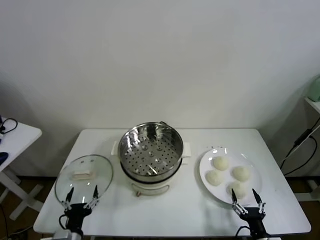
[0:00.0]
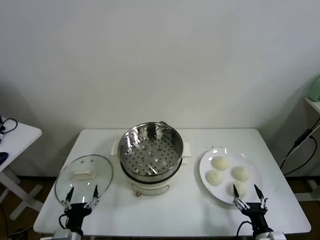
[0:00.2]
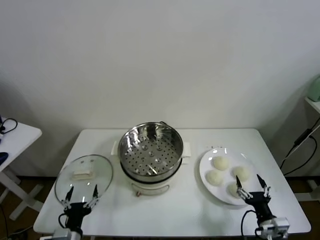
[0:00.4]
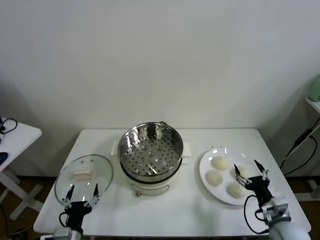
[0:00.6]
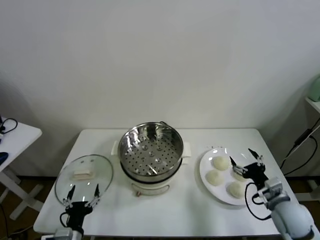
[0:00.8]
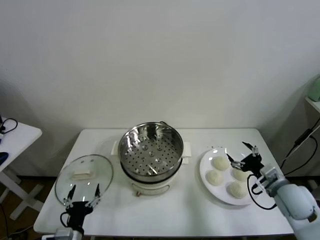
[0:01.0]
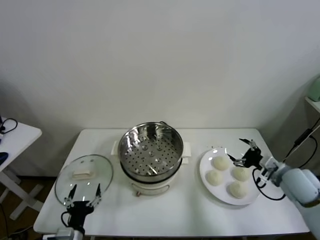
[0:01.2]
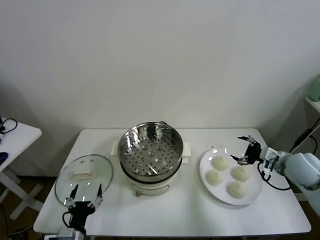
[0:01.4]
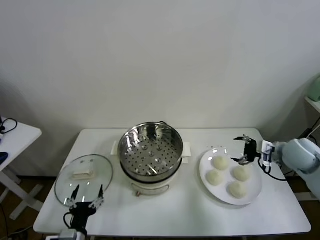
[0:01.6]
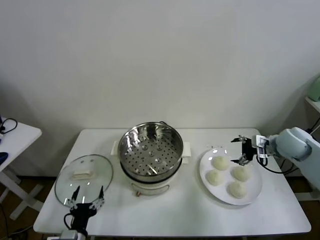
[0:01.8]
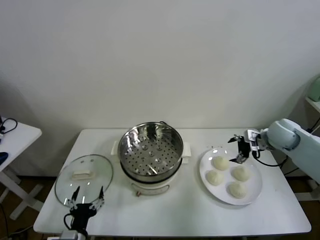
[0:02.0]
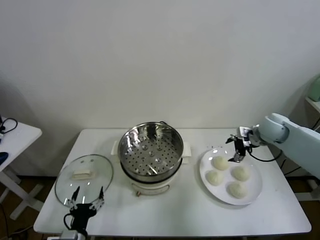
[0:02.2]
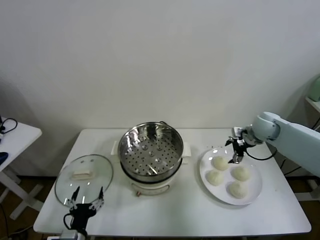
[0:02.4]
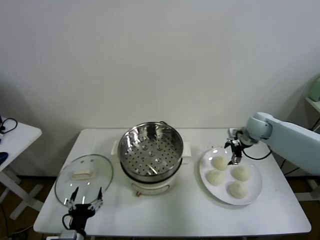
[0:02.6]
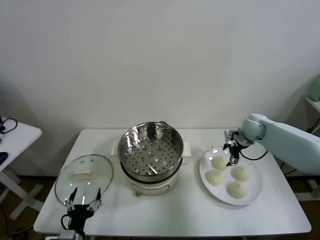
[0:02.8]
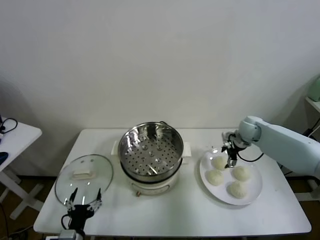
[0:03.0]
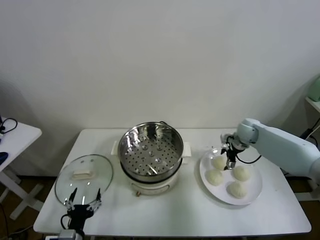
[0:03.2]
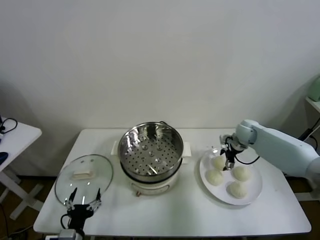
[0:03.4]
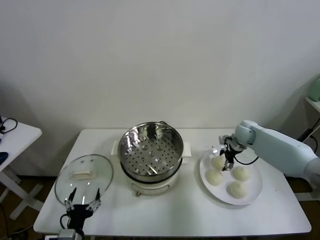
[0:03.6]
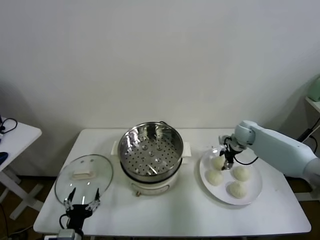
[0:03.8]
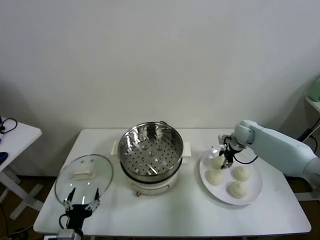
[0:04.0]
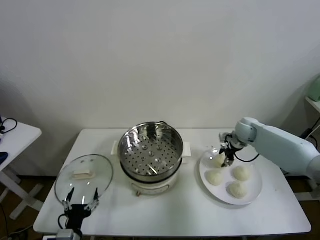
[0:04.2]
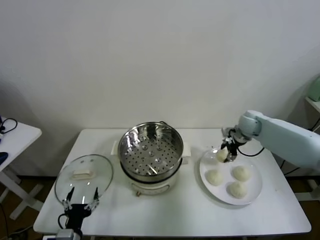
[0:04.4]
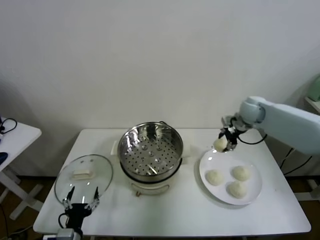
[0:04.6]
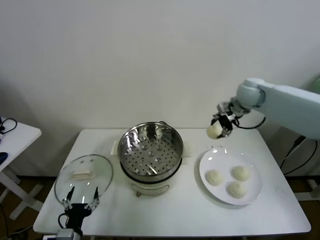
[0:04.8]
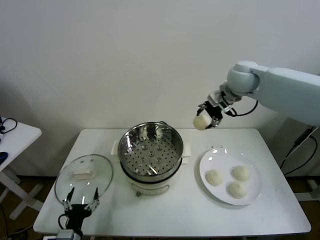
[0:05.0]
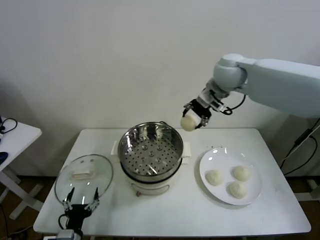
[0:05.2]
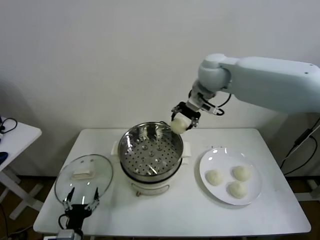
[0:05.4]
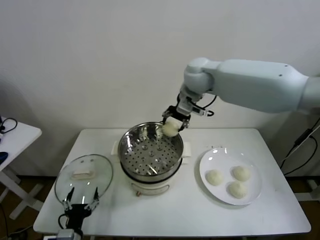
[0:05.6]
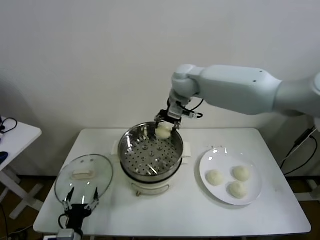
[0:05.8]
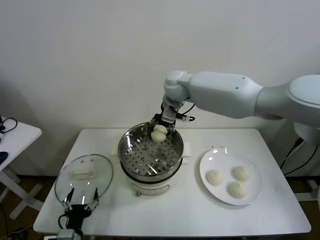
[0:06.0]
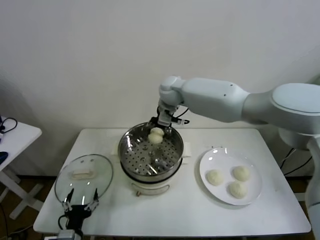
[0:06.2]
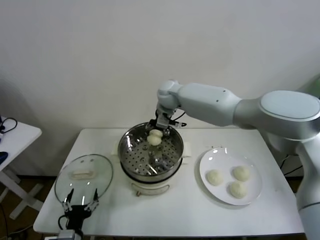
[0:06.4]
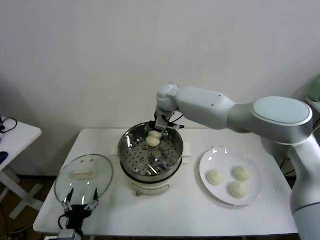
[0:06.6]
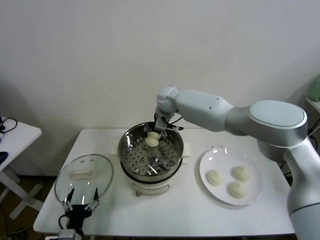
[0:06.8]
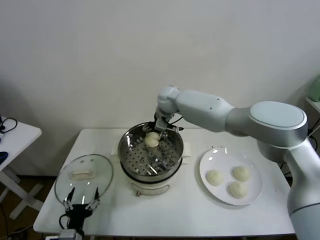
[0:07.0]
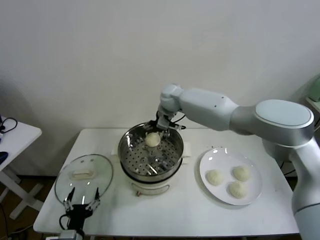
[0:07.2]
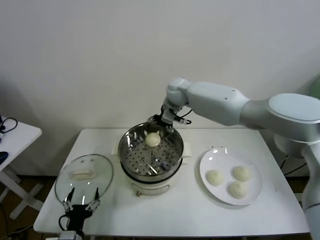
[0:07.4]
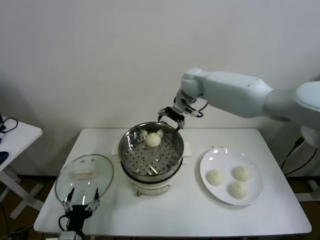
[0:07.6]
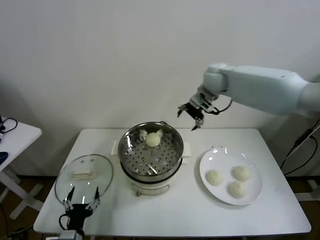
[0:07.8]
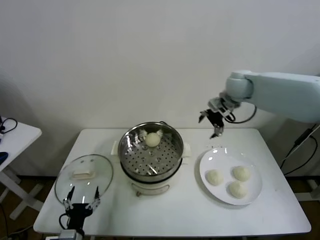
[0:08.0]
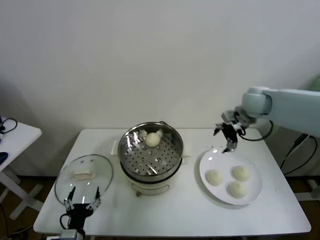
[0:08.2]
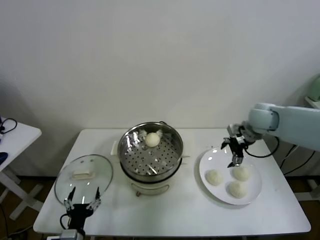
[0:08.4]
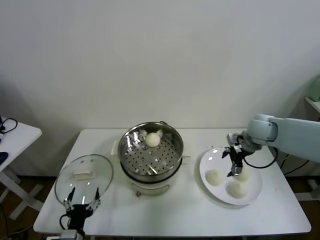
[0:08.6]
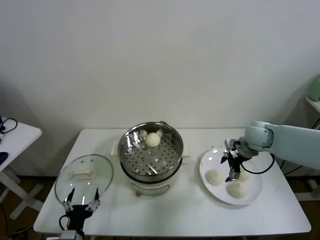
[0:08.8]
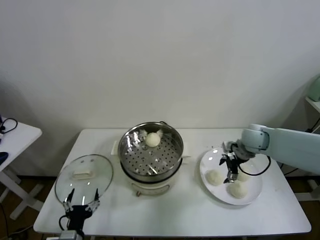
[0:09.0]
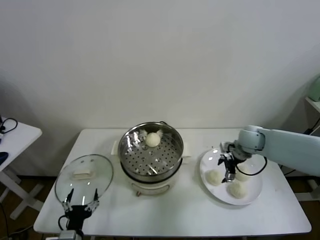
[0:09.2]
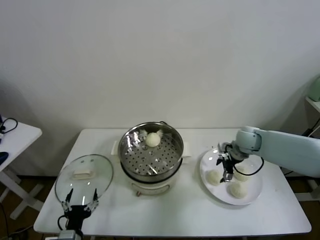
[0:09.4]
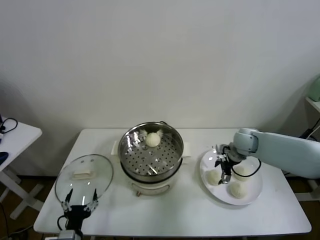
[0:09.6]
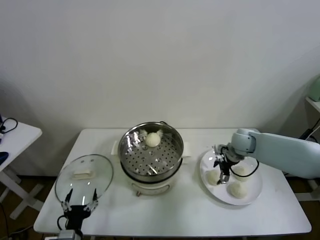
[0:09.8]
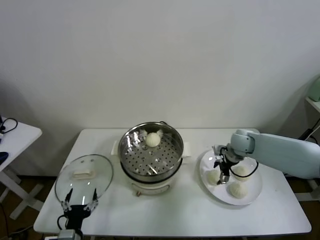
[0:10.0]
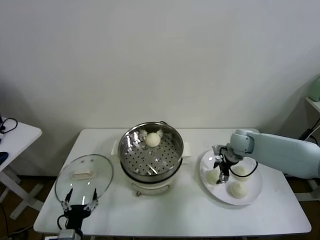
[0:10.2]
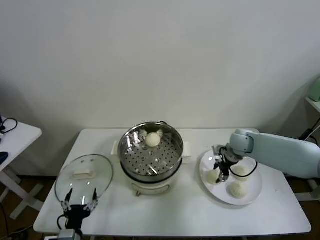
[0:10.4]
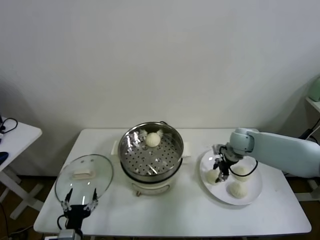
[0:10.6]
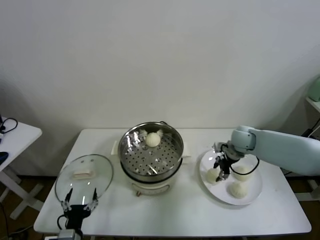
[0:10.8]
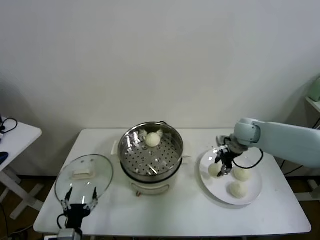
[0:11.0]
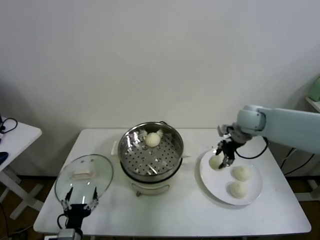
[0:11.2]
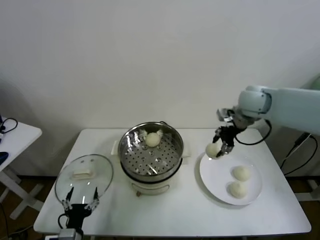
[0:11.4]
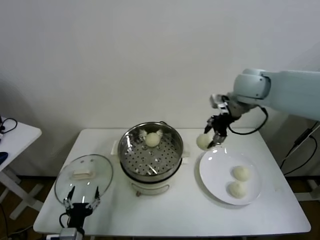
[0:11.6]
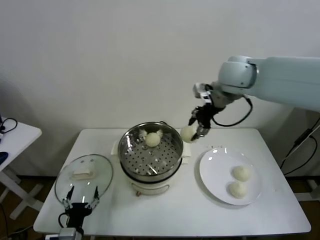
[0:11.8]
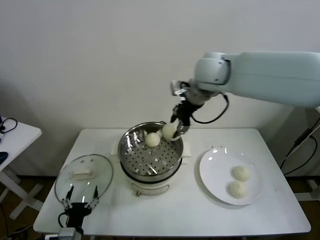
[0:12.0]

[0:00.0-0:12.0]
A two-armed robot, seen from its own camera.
Task of the whole recording: take steamed baozi put them in steamer.
Step, 0:00.0 to 0:03.8: Grasp the baozi in the plate with right gripper.
Step, 0:04.0 to 0:07.0: Place the baozi on the steamer with right gripper.
Step, 0:07.2 to 0:10.2: Grasp the baozi in the plate with right gripper.
0:01.6 to 0:03.0: The right gripper travels forward, to the left and downward by approximately 15 cm.
0:03.0 to 0:04.4: The right gripper shifts approximately 5 cm upward, and closes up.
0:04.4 to 0:06.0: The right gripper heads to the left, covering roughly 30 cm.
0:06.0 to 0:07.6: The right gripper heads to the right, covering about 10 cm, and opens up.
0:07.6 to 0:09.0: The right gripper heads downward, to the right and backward, covering some 25 cm.
0:09.0 to 0:10.4: The right gripper closes.
0:10.4 to 0:12.0: The right gripper heads upward and to the left, covering approximately 35 cm.

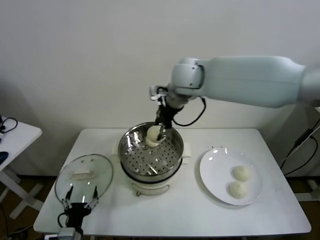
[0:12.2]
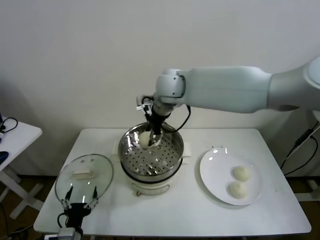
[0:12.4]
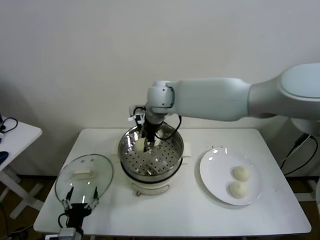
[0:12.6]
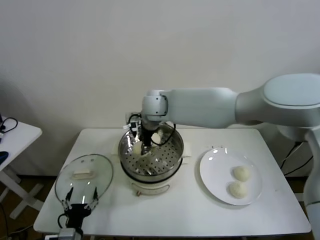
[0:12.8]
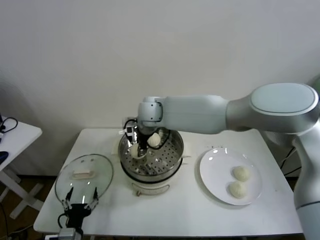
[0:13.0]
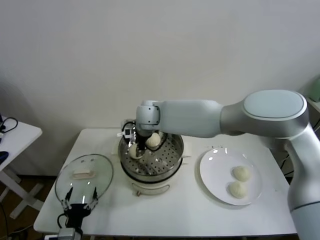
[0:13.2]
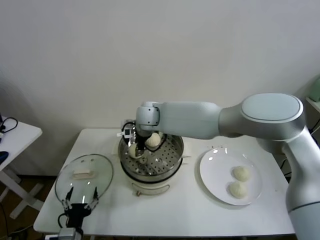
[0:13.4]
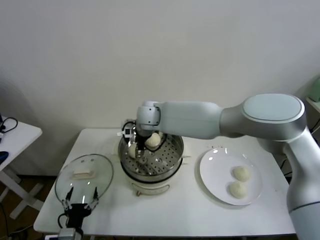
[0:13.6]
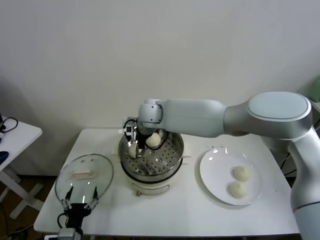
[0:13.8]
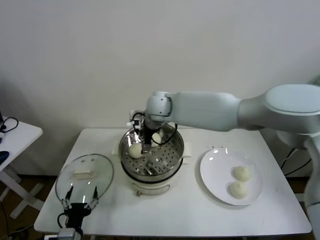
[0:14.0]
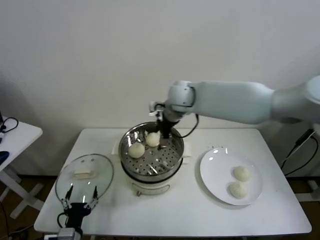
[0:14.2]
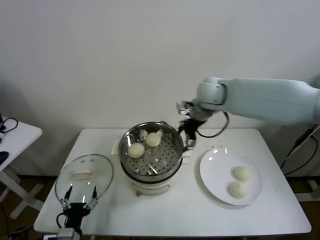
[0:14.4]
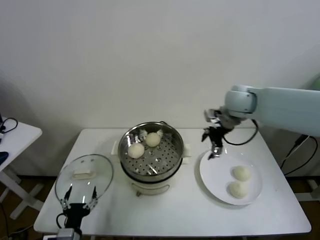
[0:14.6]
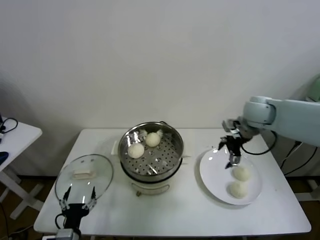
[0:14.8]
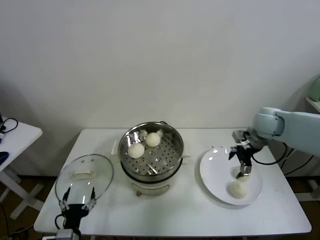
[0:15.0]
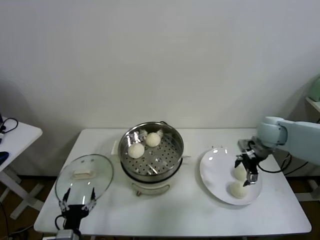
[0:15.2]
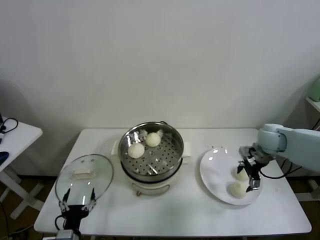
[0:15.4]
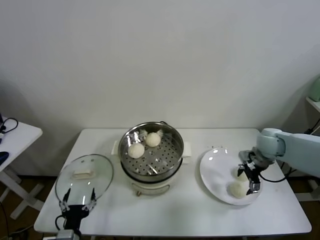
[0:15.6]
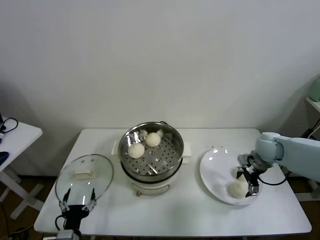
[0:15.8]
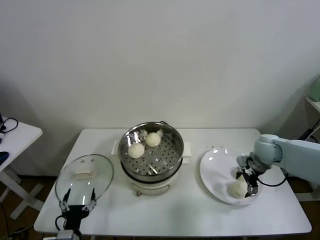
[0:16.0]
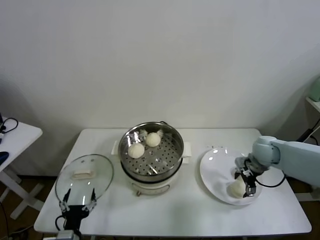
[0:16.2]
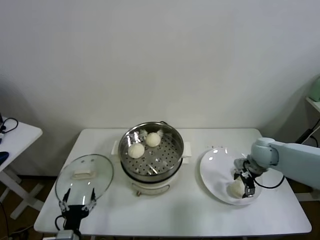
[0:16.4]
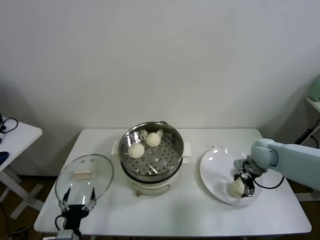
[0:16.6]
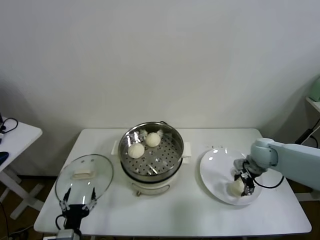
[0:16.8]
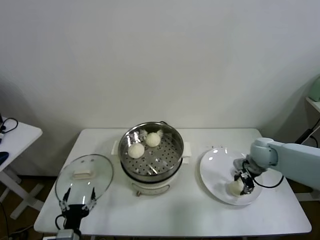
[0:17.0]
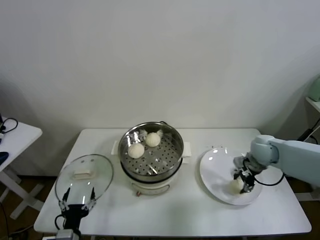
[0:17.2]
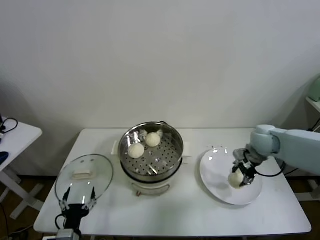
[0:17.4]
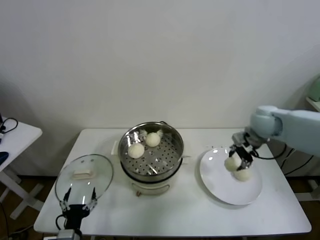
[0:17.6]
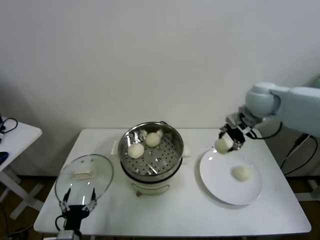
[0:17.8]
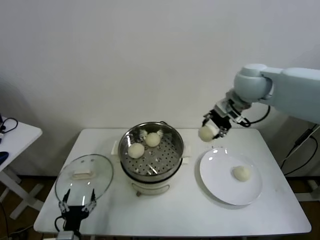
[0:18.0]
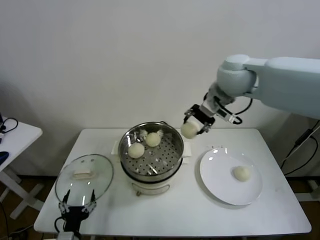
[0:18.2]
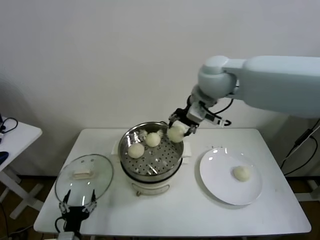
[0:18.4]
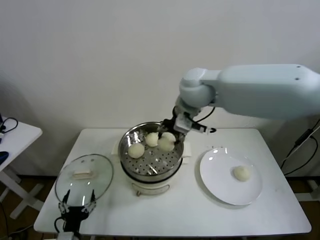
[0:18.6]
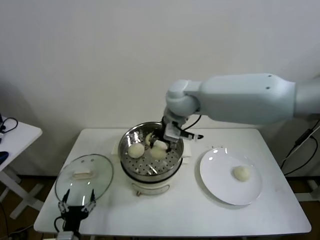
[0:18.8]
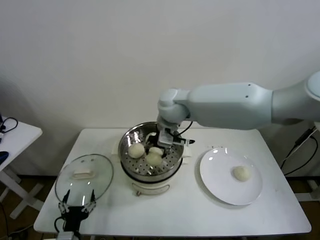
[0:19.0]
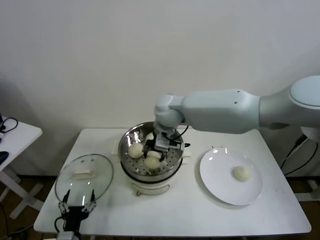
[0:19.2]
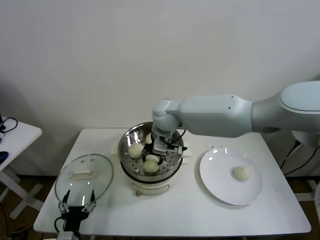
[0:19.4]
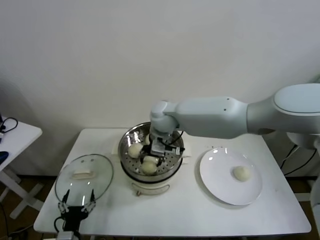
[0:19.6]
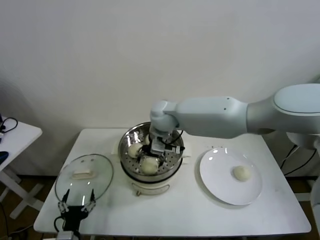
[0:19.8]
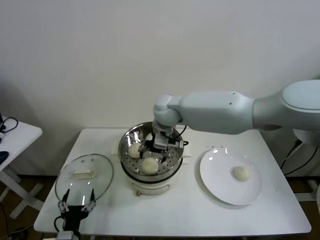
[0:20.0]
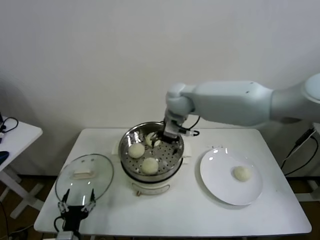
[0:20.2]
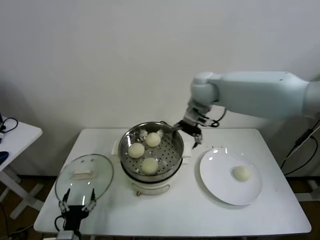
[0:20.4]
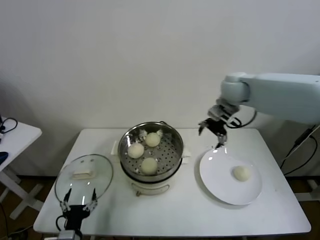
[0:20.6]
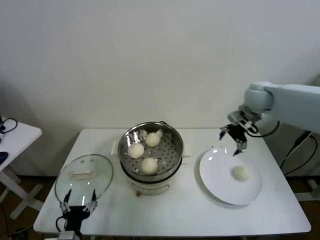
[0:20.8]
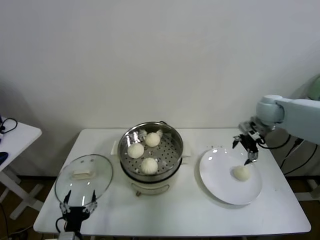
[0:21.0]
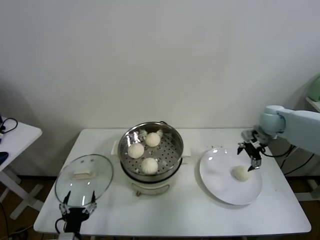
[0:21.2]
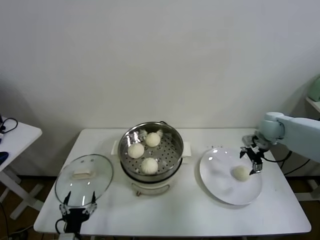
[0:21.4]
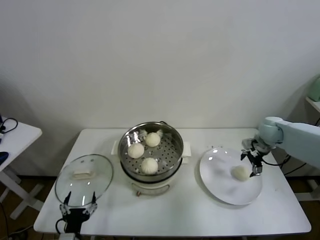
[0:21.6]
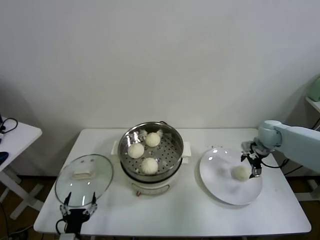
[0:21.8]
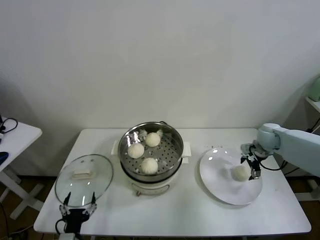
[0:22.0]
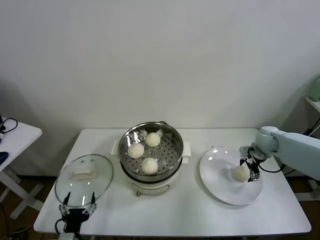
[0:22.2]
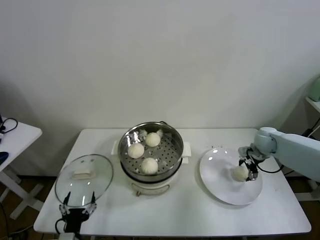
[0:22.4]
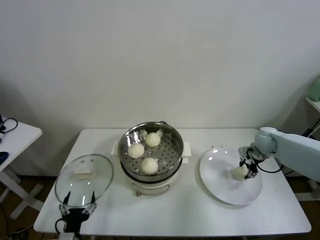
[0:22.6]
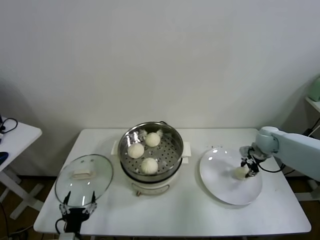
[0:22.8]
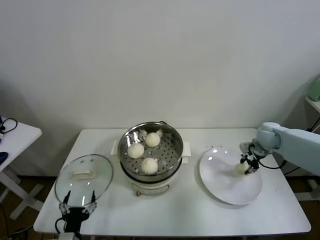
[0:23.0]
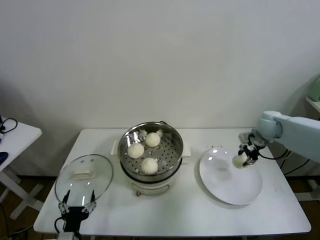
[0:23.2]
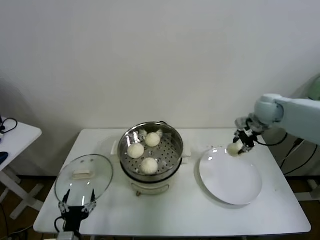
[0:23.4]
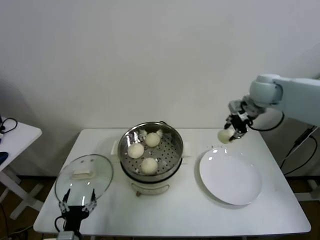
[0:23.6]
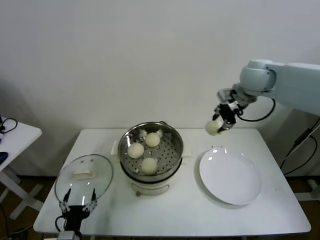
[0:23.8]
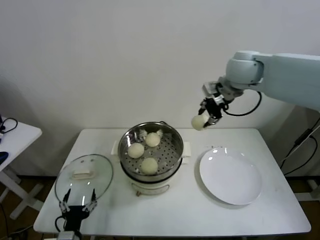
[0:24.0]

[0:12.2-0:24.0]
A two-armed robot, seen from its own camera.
Task of the whole recording: take steamed baozi put them in steamer.
Step, 0:13.8 to 0:16.8: Grasp the baozi in the plate with right gripper.
Step, 0:17.0 to 0:19.6: Place the baozi on the steamer with right gripper.
Step, 0:19.8 to 0:22.4: Grasp the baozi in the plate with right gripper.
0:12.2 to 0:13.6: The right gripper goes roughly 15 cm downward and to the left, and opens its fingers.
0:13.6 to 0:15.2: The right gripper heads to the right, covering about 40 cm.
0:15.2 to 0:16.6: The right gripper is displaced downward by roughly 10 cm.
0:16.6 to 0:18.2: The right gripper shifts about 35 cm upward and to the left, and closes its fingers.
0:18.2 to 0:19.6: The right gripper shifts some 25 cm to the left and downward.
0:19.6 to 0:21.0: The right gripper heads to the right, covering about 35 cm, and opens.
0:21.0 to 0:22.6: The right gripper shifts roughly 15 cm downward, and closes its fingers.
0:22.6 to 0:24.0: The right gripper is displaced upward and to the left by some 35 cm.
